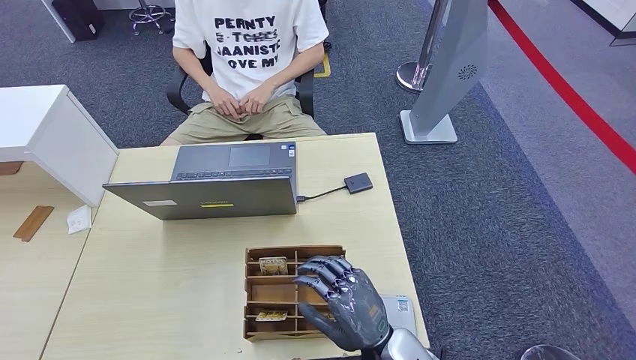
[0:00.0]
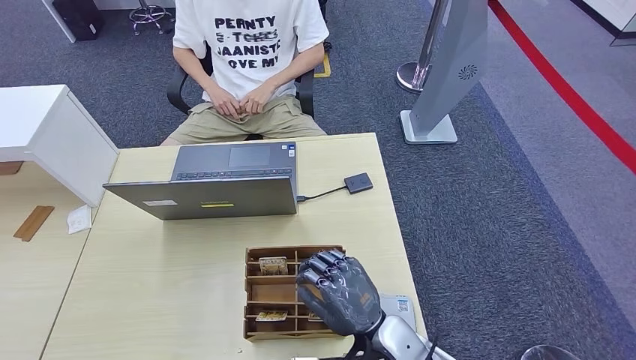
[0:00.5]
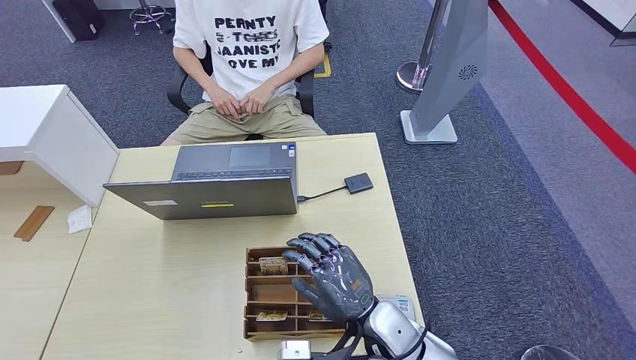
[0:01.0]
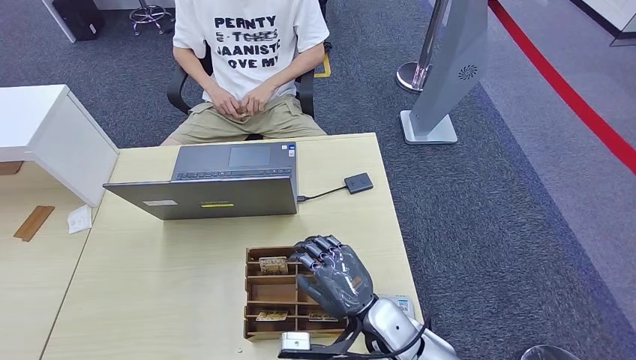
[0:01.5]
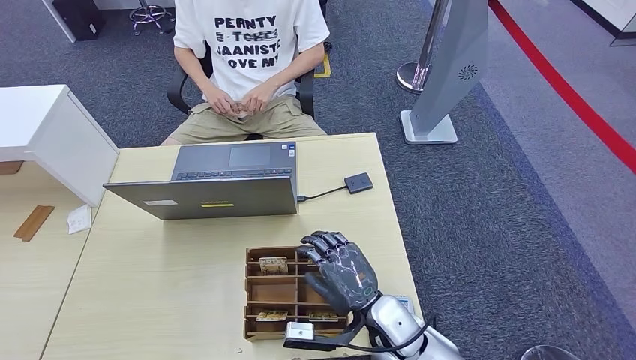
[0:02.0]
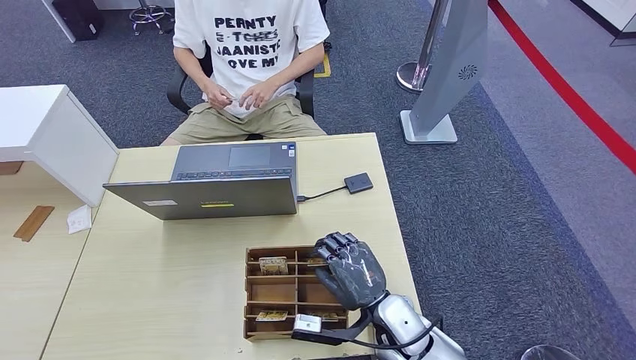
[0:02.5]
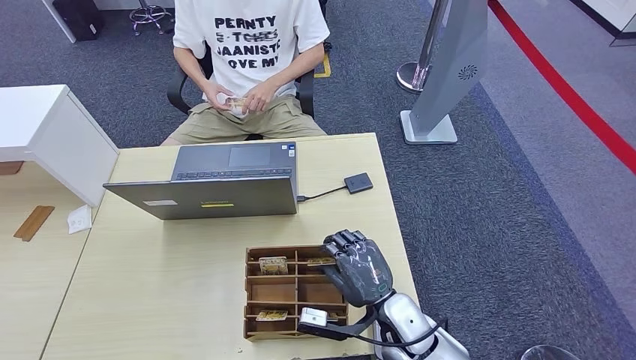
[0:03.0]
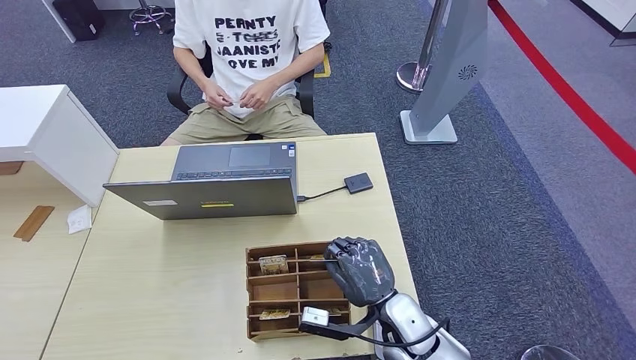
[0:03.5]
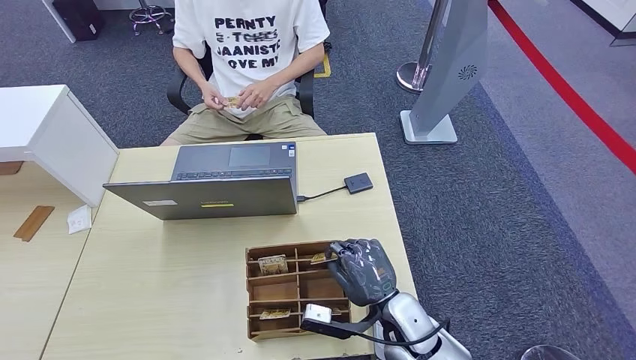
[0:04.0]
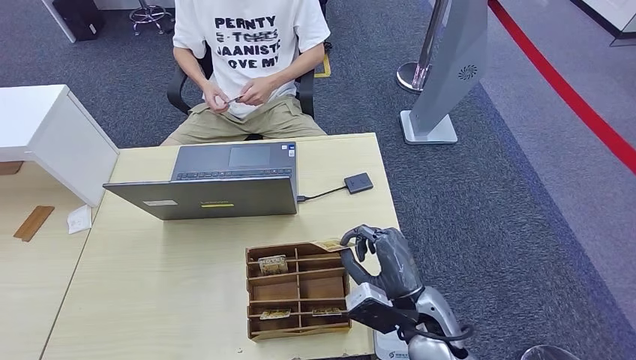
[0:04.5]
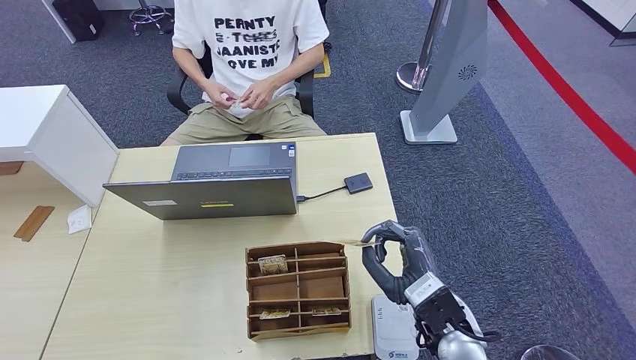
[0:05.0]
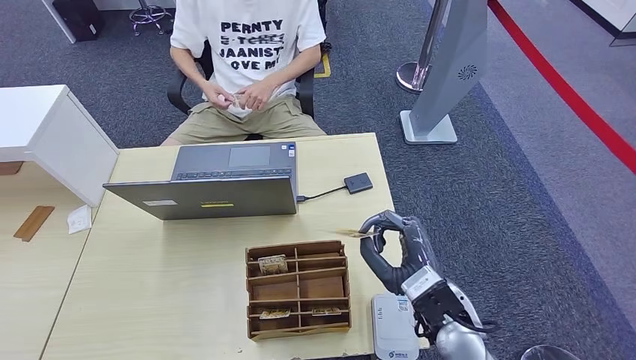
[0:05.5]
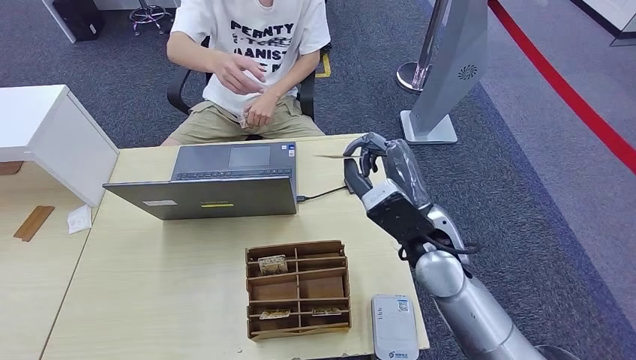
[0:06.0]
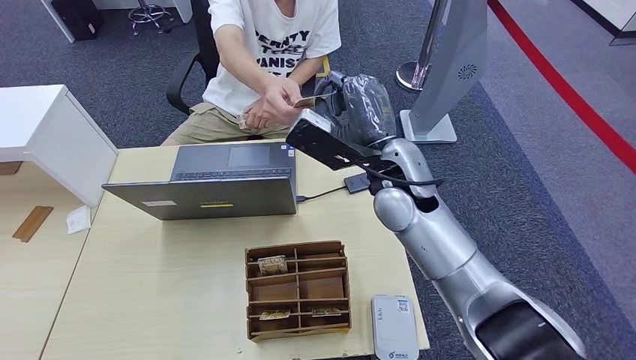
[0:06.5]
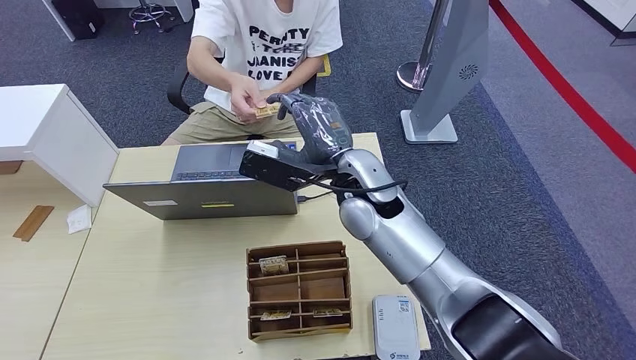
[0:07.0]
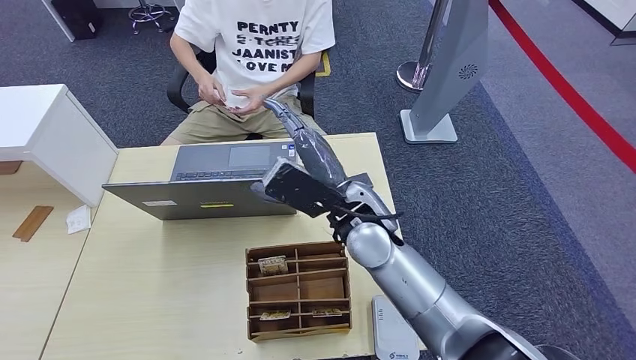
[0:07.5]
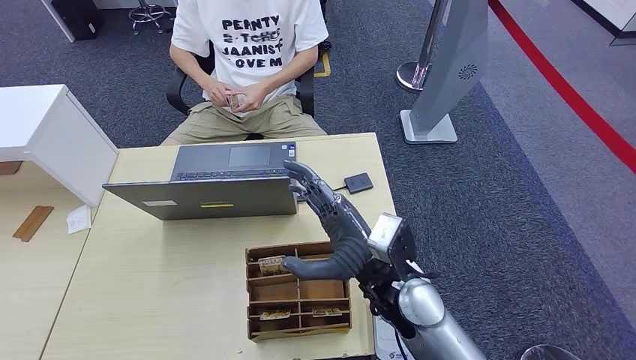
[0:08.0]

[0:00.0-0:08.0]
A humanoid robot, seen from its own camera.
Step, 0:00.0 to 0:04.0: Pick up the room key from the key card box.
Step, 0:04.5 to 0:08.0: Hand the room key to the person.
0:00.0 to 0:02.0: The right hand shifts some 5 cm forward.
0:02.0 to 0:04.0: The hands move only a little.
0:04.0 to 0:06.0: The right hand goes roughly 15 cm upward and forward.
0:06.0 to 0:08.0: The right hand shifts approximately 5 cm to the left.
